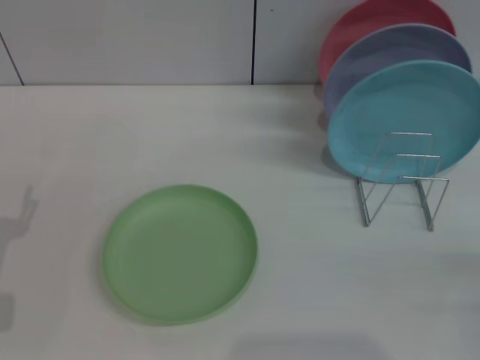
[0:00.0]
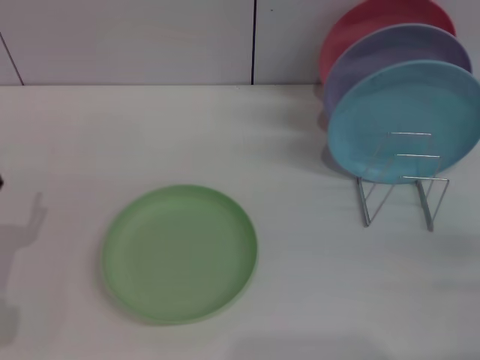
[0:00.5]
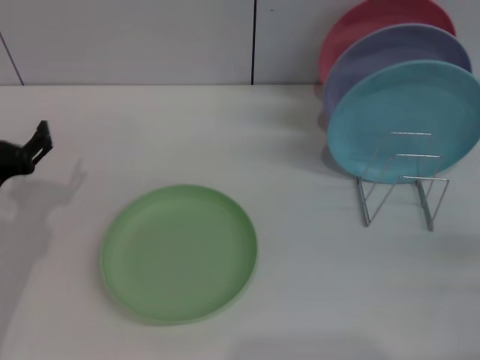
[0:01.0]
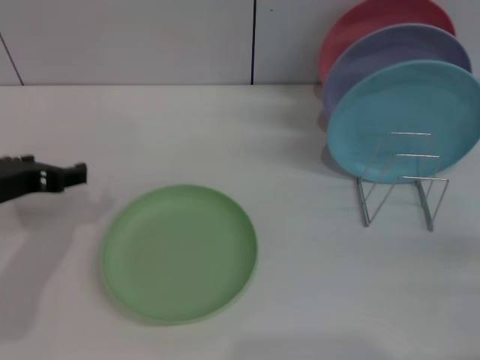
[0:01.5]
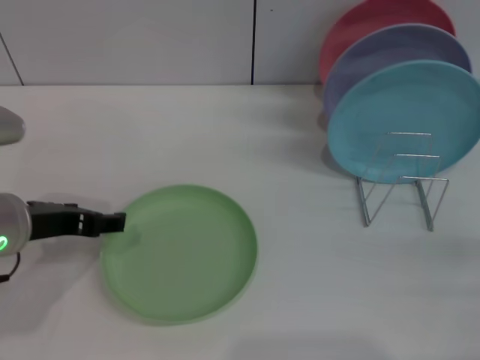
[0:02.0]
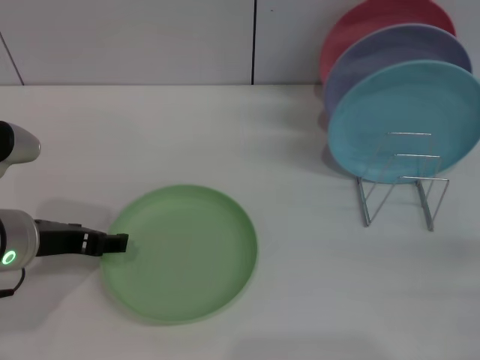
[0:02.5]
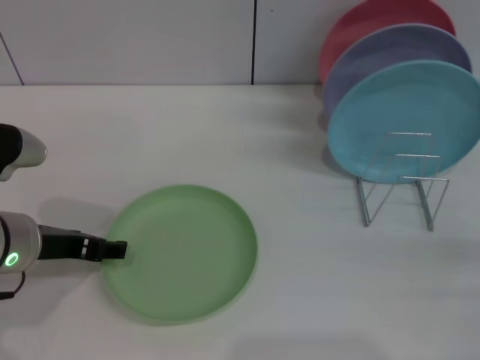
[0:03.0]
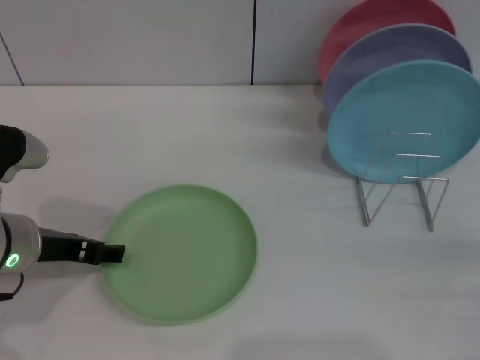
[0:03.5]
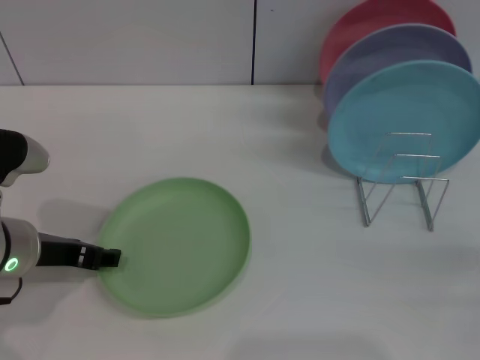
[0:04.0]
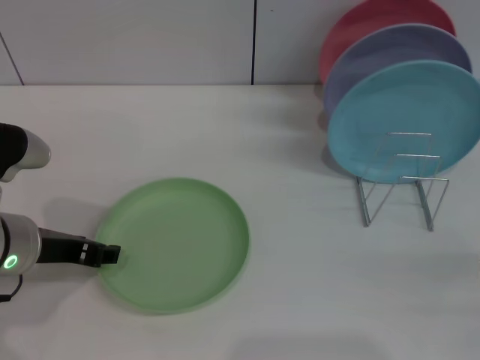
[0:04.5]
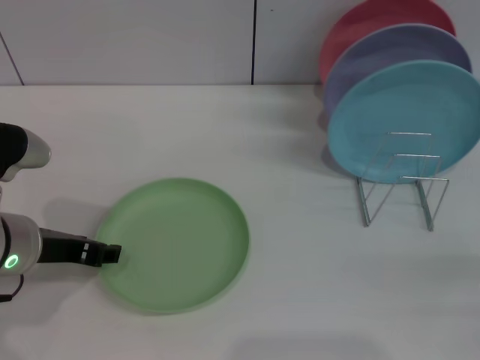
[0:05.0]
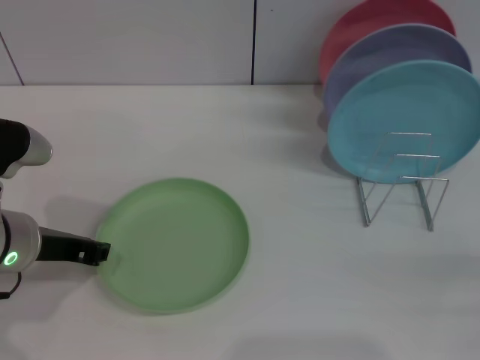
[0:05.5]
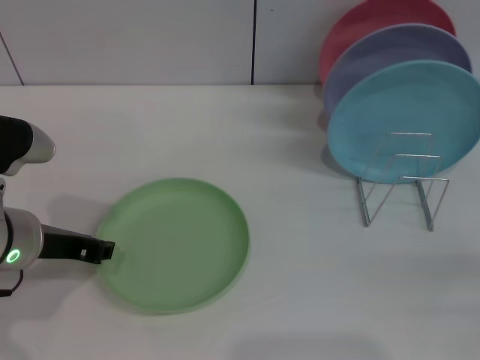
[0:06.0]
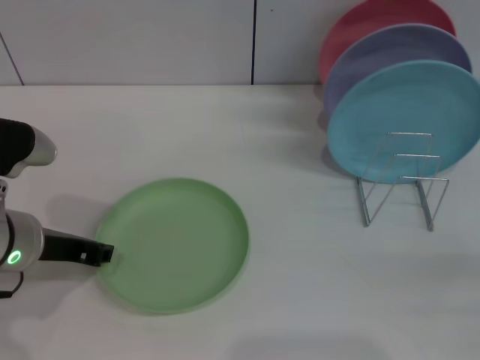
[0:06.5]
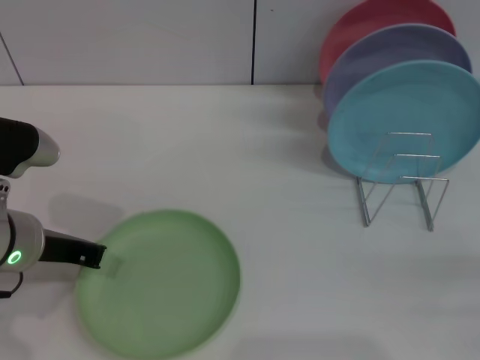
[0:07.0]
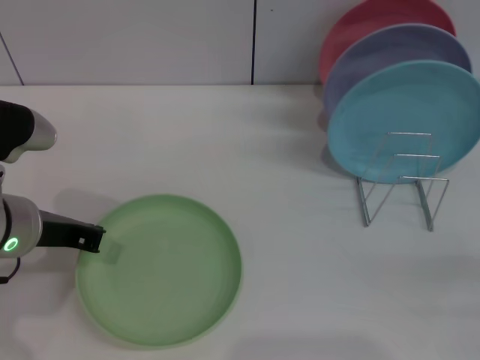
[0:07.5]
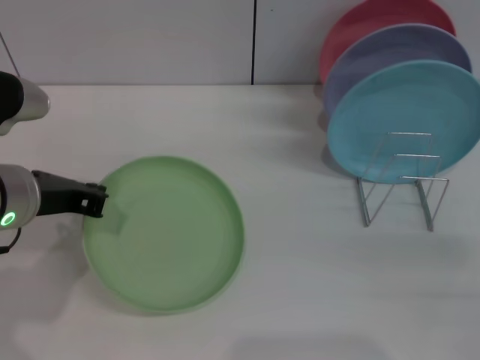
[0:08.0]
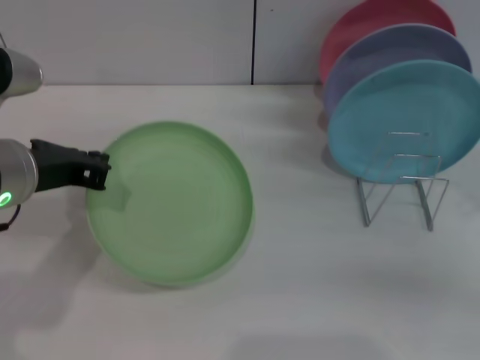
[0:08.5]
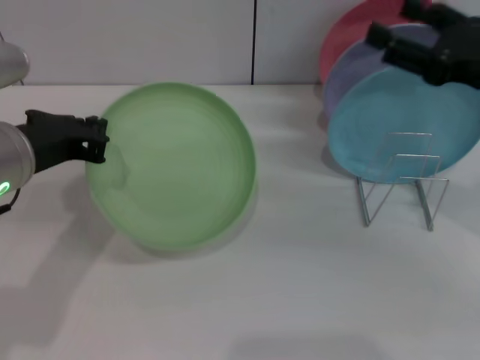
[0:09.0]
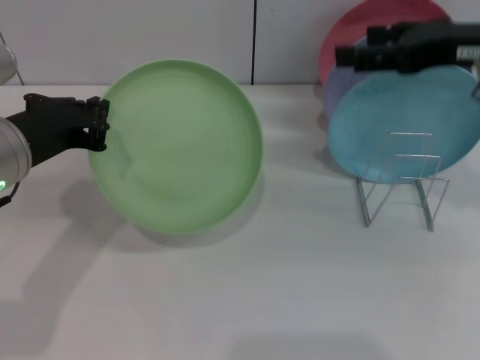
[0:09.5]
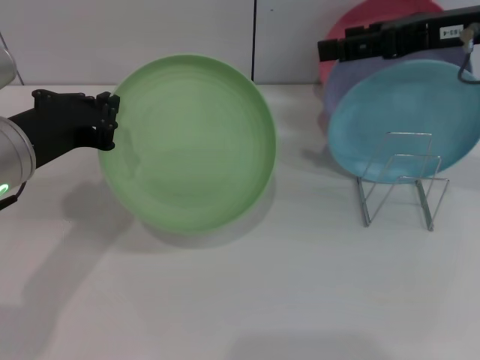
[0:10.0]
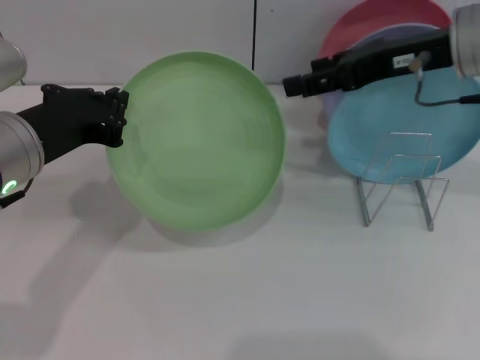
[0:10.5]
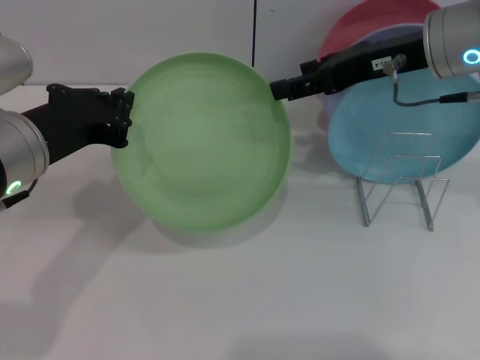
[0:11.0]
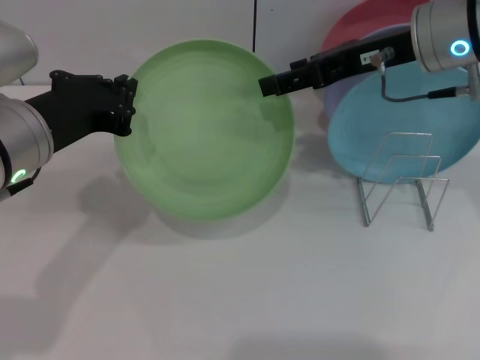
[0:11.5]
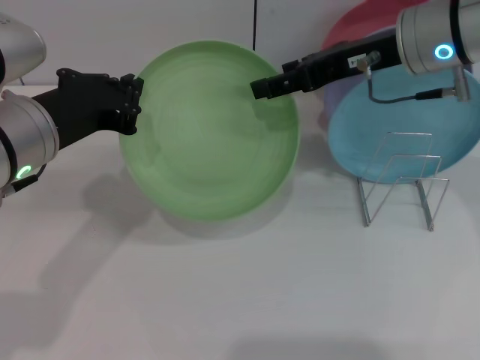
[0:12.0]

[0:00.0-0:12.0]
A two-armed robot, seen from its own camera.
Task of the whole recording: Grip the plate with one hand, pass it to the other, then set it on the shelf.
Step, 0:00.0 to 0:08.5: Pick up the plate with the left gripper.
0:00.0 to 0:02.0: The left gripper moves upward, to the right and forward, about 15 cm.
0:02.0 to 0:04.0: There are only small adjustments of the grippers.
0:04.0 to 0:06.0: The left gripper closes its fingers.
0:06.0 to 0:08.0: The left gripper closes its fingers.
0:08.0 to 0:10.0: The right gripper heads forward, upward and to the left, covering approximately 30 cm.
0:10.0 to 0:12.0: The right gripper shifts some 5 cm to the left.

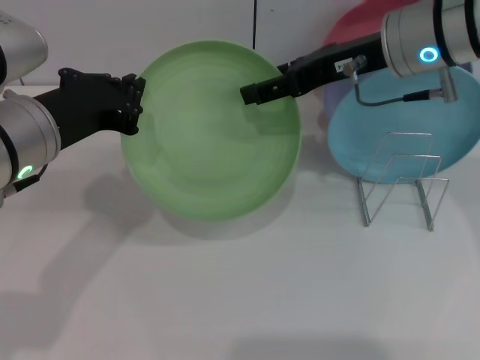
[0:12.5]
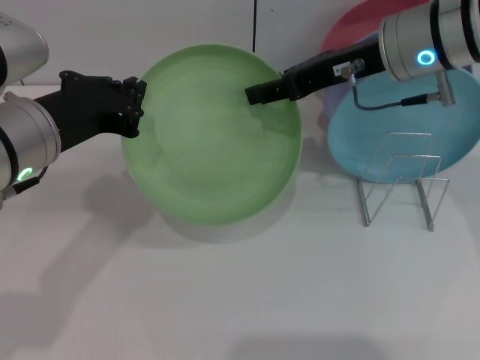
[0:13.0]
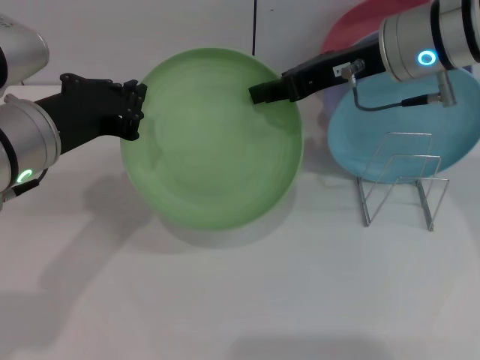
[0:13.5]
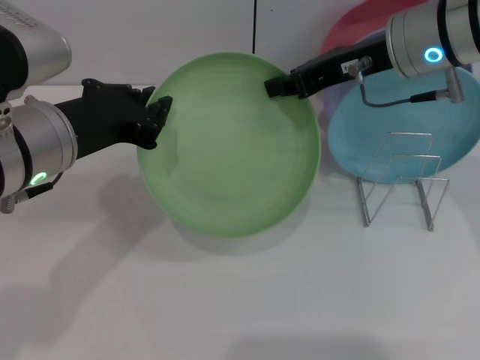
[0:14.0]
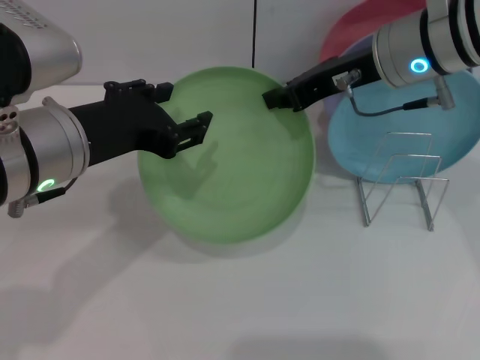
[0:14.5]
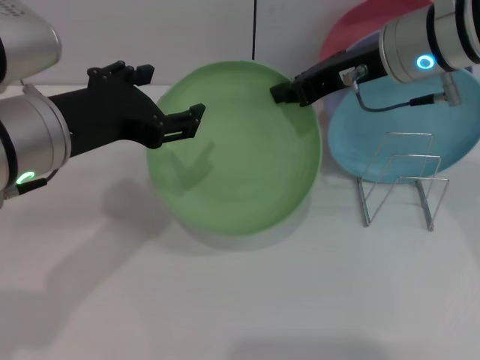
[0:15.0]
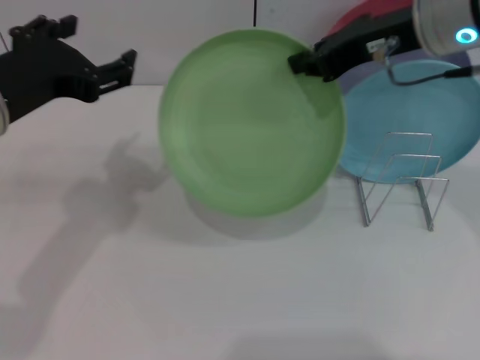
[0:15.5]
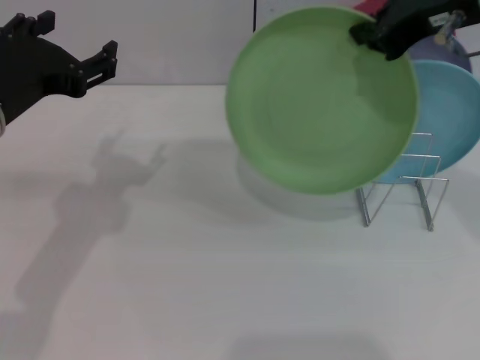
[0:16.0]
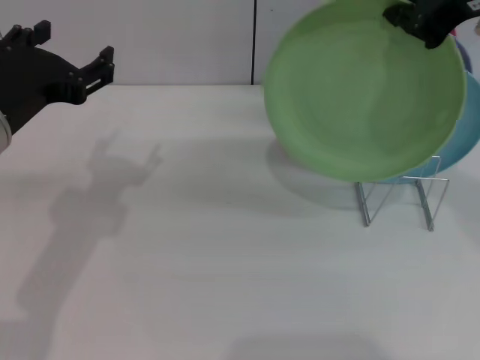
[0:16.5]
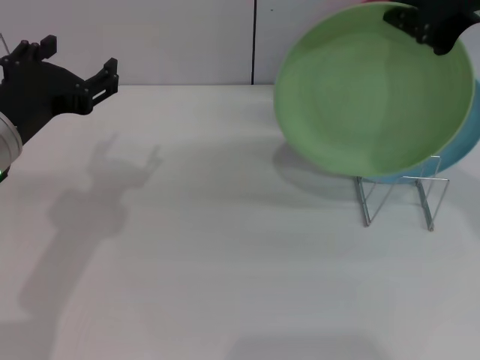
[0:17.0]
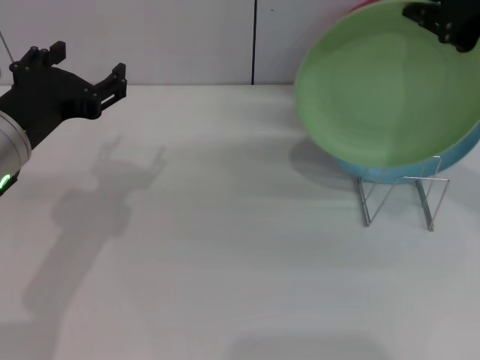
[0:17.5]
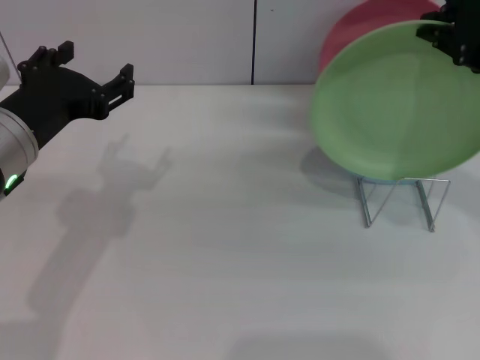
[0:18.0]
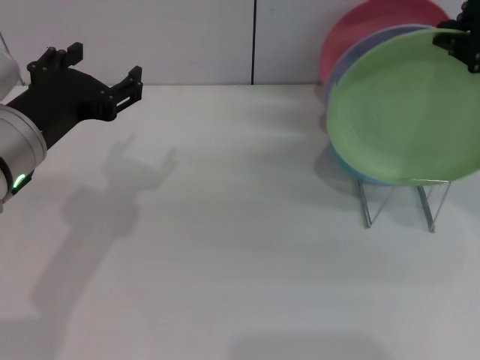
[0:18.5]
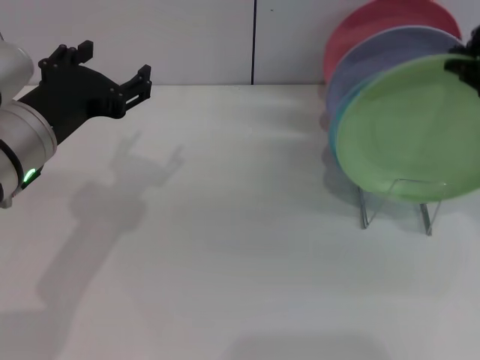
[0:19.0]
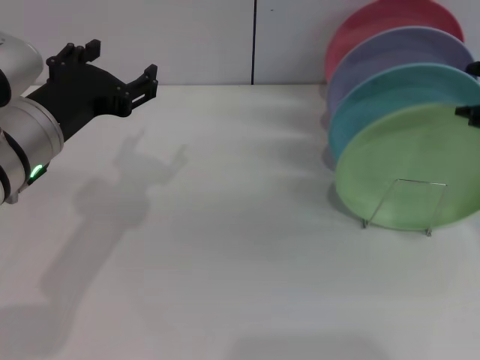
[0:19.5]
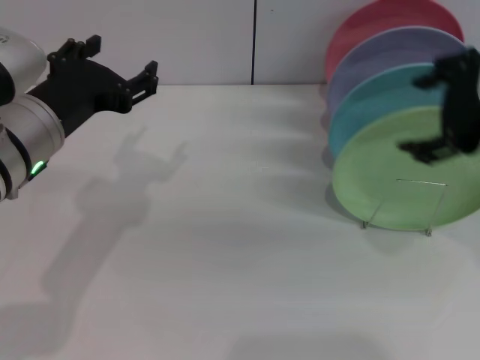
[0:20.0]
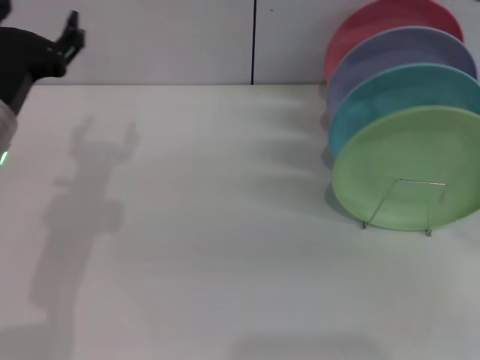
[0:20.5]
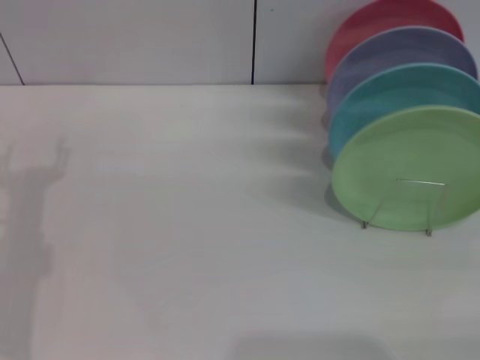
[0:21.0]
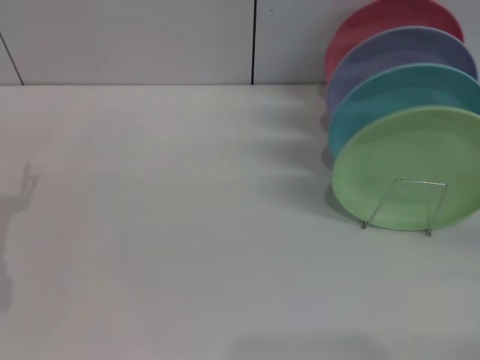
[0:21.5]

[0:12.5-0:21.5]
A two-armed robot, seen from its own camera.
Task of the whole recording: Grip the plate with one hand, pass it to the other, then set it on the shelf.
Step, 0:12.5 to 0:14.5: Pass the plate from the left gripper to the right gripper.
Step, 0:15.0 to 0:19.5: Place the plate on the shelf with the right gripper.
0:12.5 to 0:14.5: The right gripper closes its fingers. The left gripper opens up.
0:14.5 to 0:17.0: The right gripper moves upward, backward and to the right, about 15 cm; the left gripper changes place by some 5 cm, and opens up.
0:17.0 to 0:19.5: The right gripper ends up roughly 5 cm from where it was, and opens up.
0:19.5 to 0:21.5: The right gripper shifts roughly 30 cm downward, to the right and backward, and opens, while the left gripper travels downward and to the left by about 15 cm.
